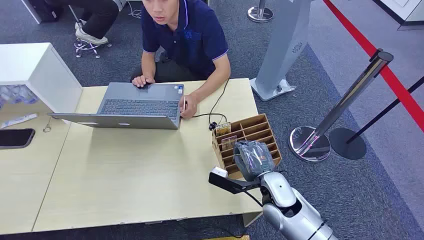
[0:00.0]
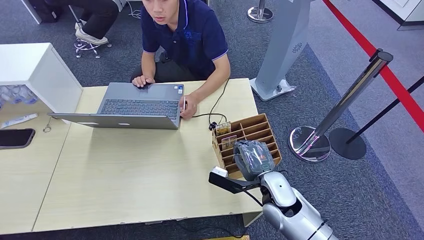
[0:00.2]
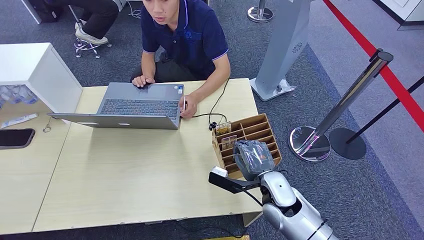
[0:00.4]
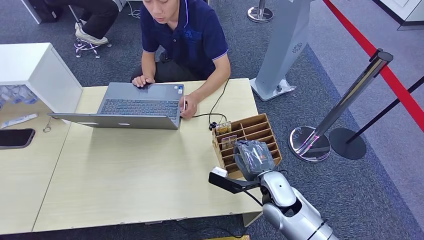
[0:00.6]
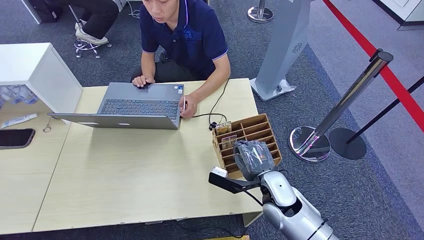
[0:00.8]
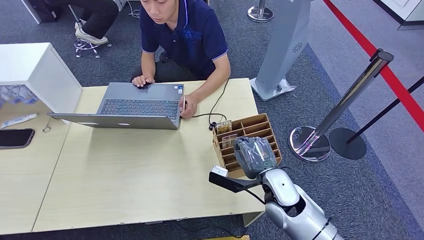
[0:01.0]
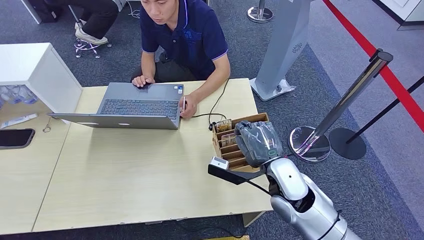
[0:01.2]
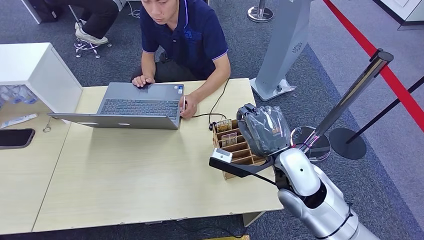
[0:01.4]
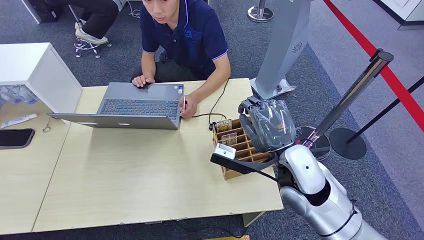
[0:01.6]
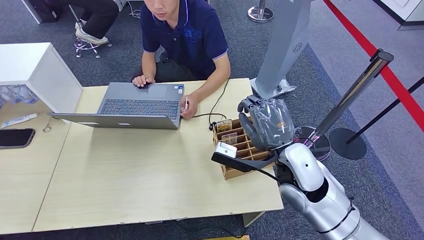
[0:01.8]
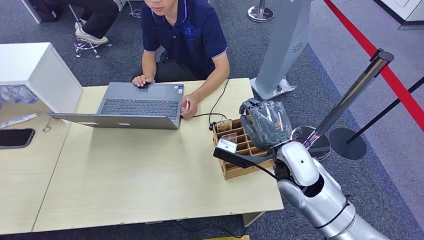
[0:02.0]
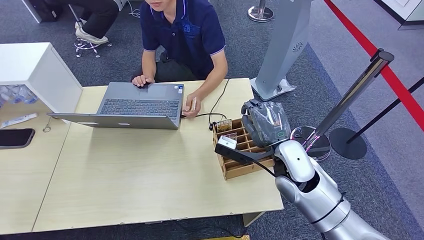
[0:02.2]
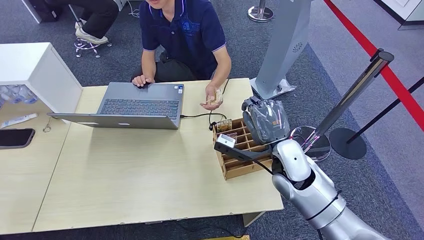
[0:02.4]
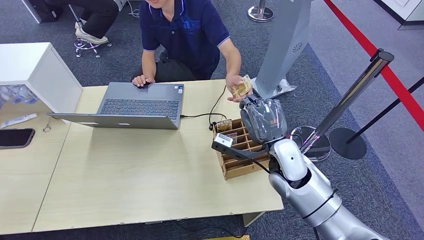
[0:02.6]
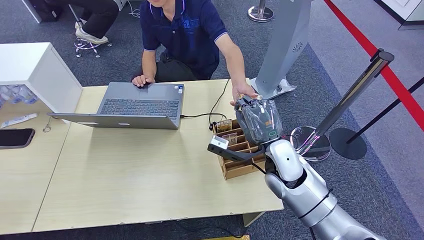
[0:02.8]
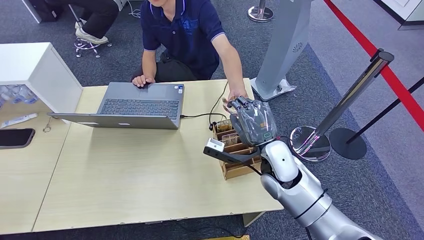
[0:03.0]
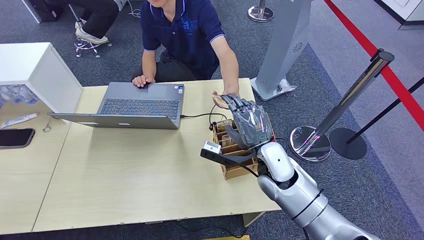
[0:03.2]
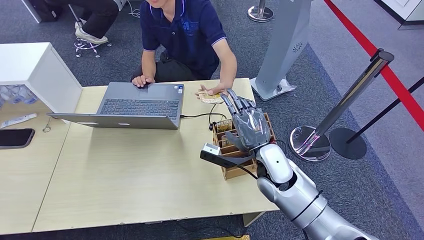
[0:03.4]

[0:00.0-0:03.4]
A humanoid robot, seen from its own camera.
Step, 0:00.0 to 0:01.2: Pick up the key card from the card box.
Step, 0:03.0 to 0:03.4: Hand the key card to the target.
0:01.6 to 0:03.4: The right hand goes about 10 cm downward and forward.

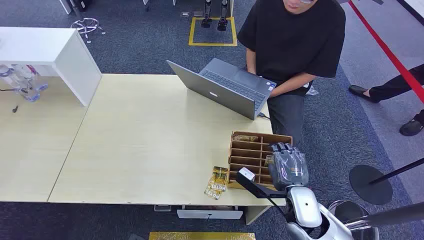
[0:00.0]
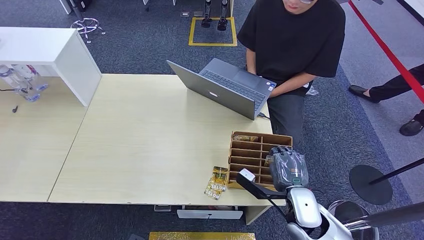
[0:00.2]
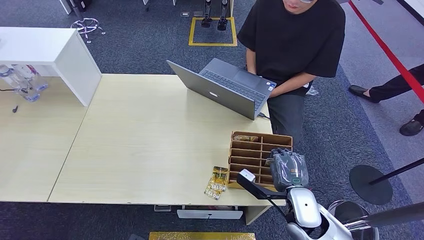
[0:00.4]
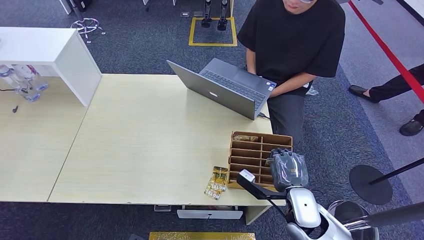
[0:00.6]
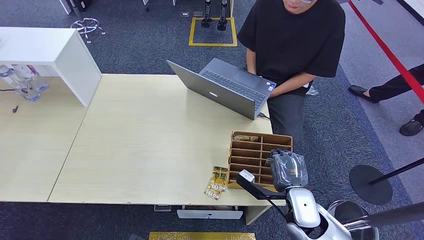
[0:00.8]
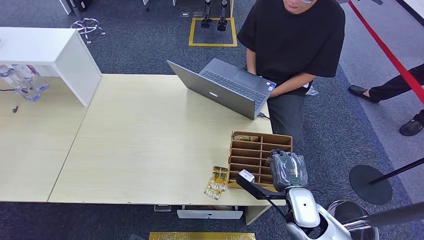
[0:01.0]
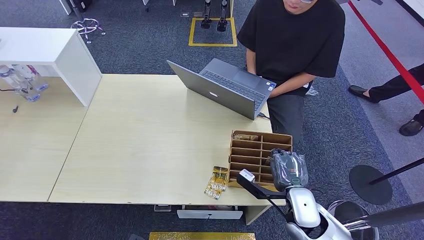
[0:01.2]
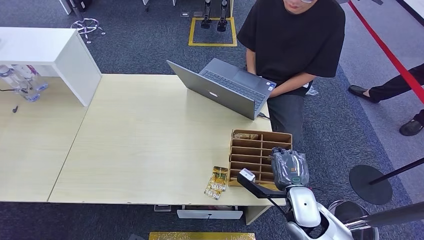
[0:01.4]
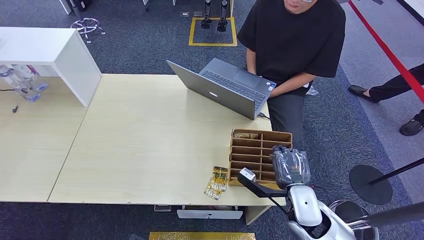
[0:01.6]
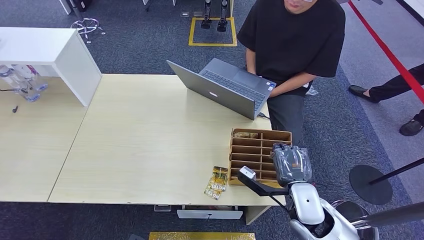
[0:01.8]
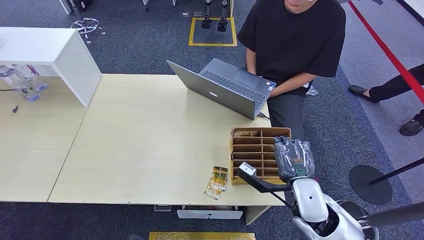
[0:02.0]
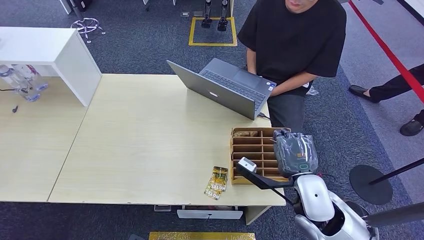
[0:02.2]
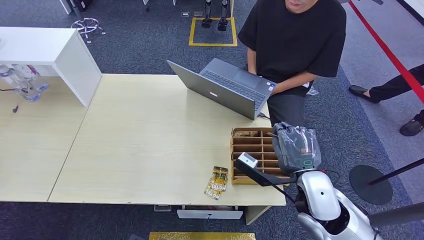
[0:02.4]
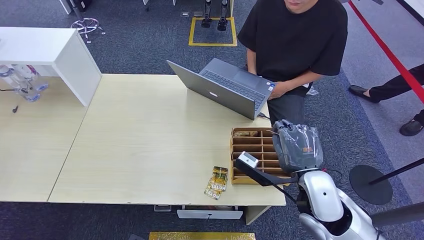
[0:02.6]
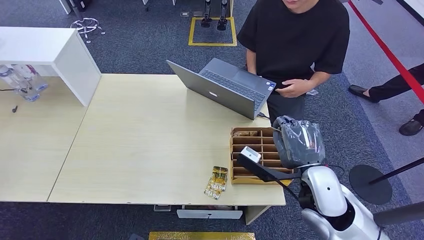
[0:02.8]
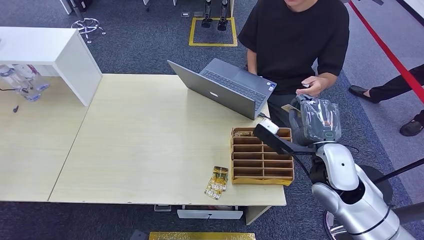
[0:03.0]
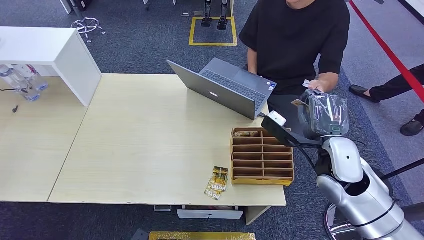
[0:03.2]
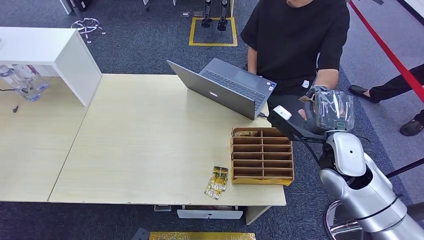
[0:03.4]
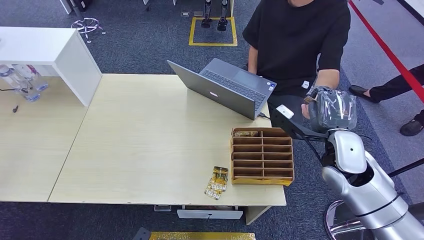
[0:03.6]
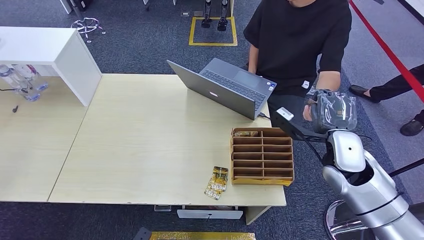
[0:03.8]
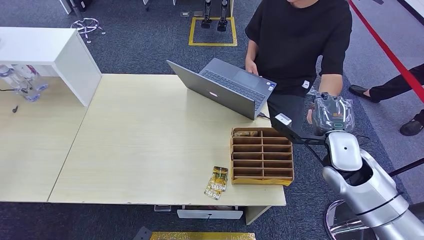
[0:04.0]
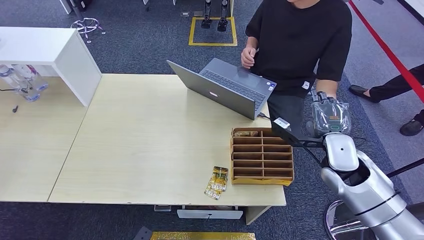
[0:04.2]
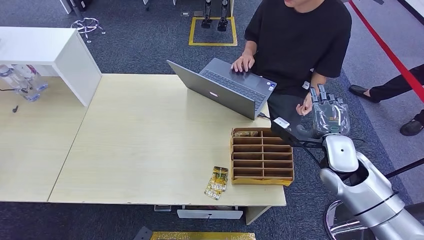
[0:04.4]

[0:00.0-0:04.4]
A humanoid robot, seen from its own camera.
Step, 0:00.0 to 0:02.8: Pick up the key card from the card box.
Step, 0:03.0 to 0:04.4: Hand the key card to the target.
0:01.4 to 0:03.0: The right hand is displaced upward by roughly 15 cm.
0:03.0 to 0:04.4: The right hand heads to the right, covering about 5 cm.

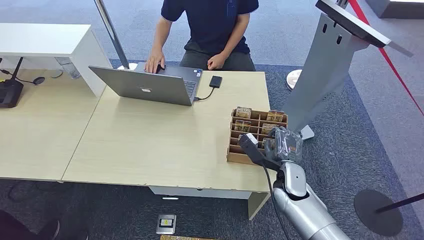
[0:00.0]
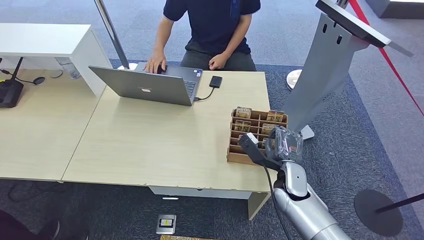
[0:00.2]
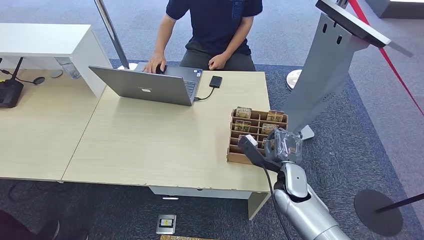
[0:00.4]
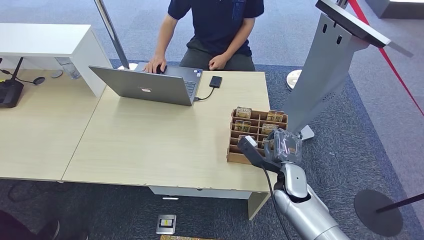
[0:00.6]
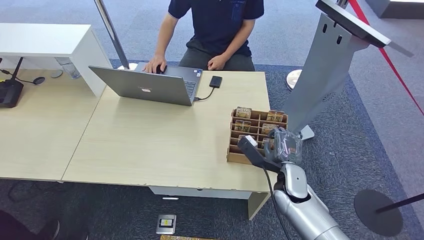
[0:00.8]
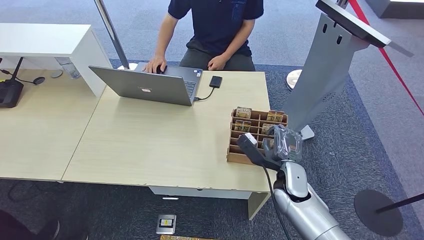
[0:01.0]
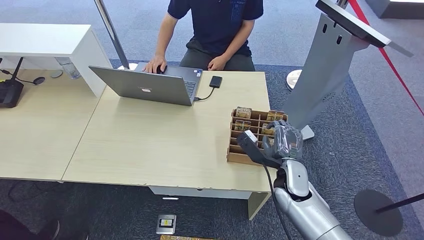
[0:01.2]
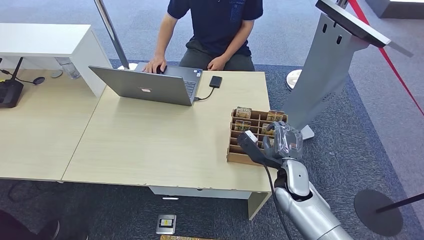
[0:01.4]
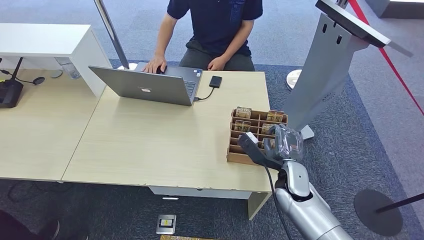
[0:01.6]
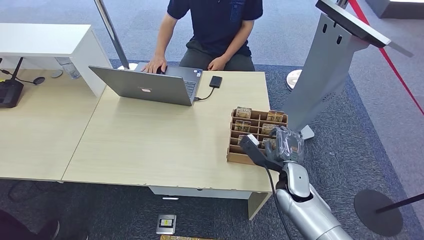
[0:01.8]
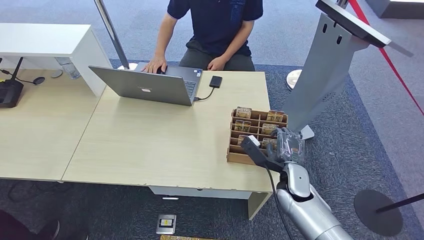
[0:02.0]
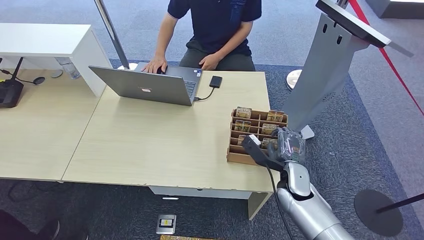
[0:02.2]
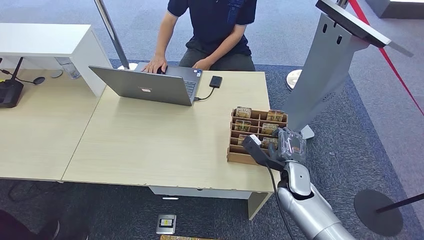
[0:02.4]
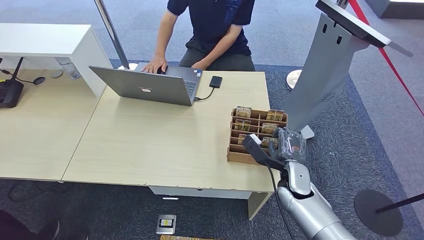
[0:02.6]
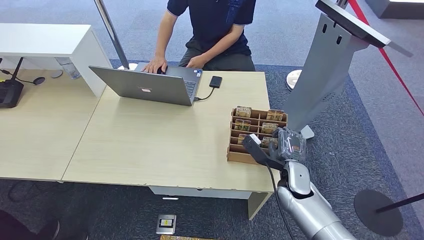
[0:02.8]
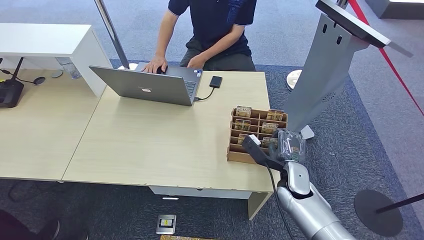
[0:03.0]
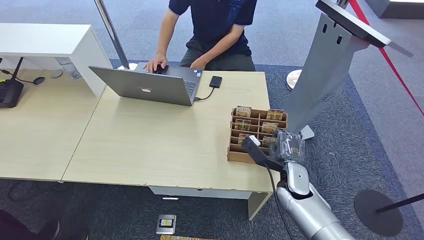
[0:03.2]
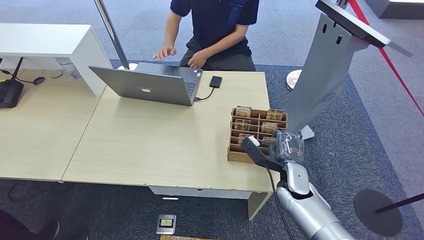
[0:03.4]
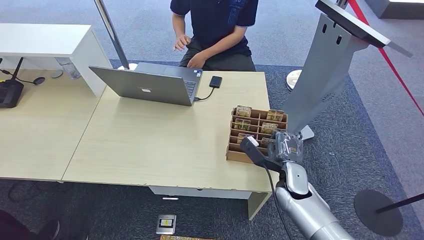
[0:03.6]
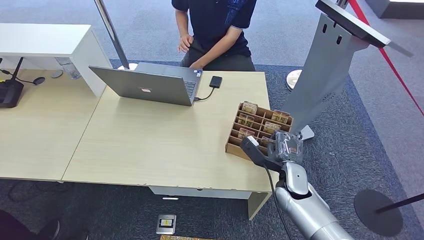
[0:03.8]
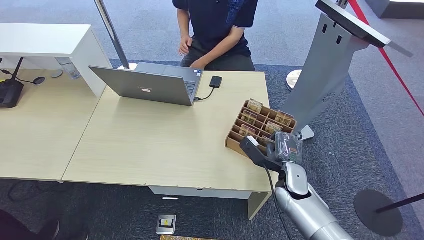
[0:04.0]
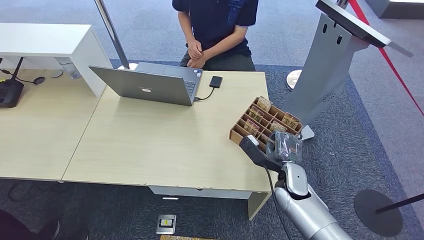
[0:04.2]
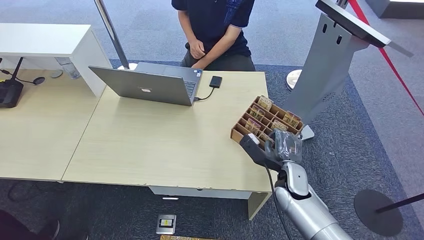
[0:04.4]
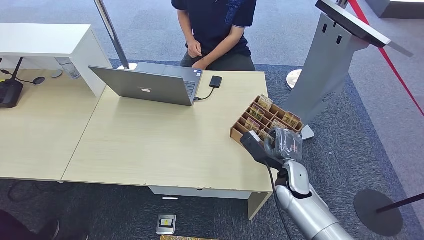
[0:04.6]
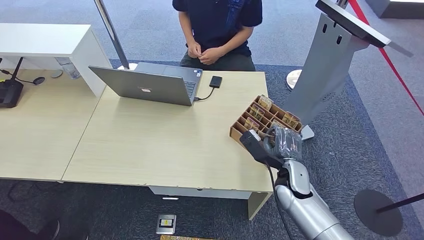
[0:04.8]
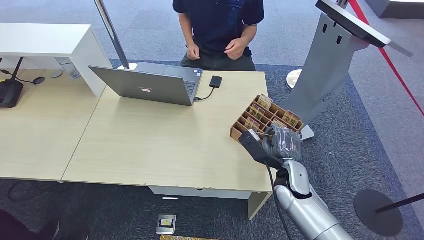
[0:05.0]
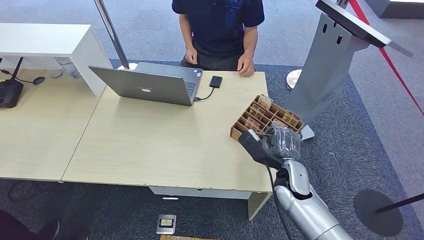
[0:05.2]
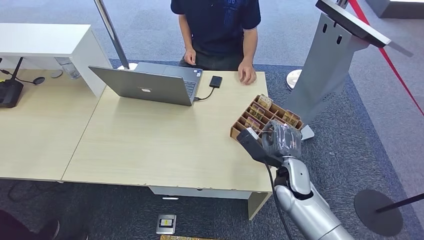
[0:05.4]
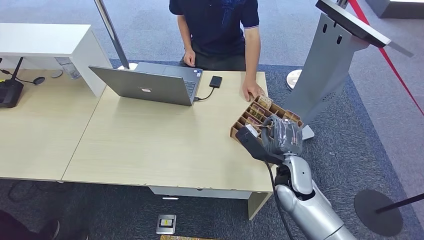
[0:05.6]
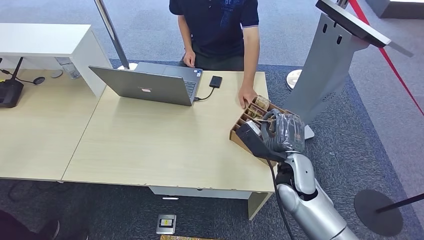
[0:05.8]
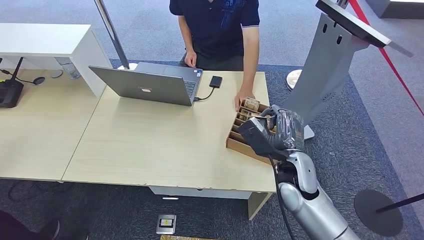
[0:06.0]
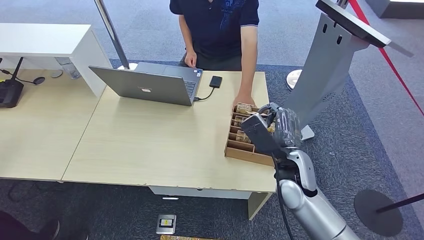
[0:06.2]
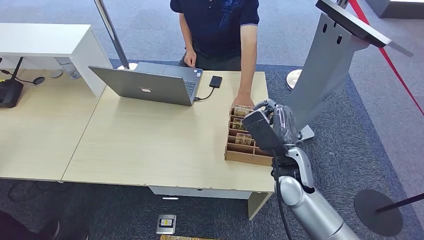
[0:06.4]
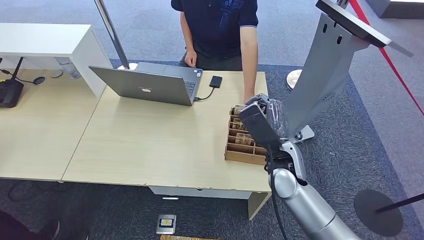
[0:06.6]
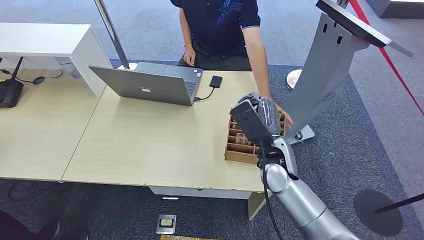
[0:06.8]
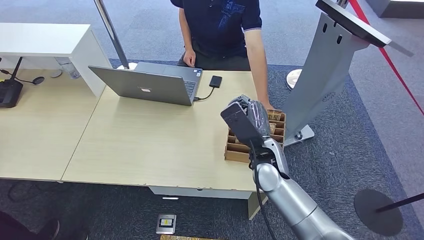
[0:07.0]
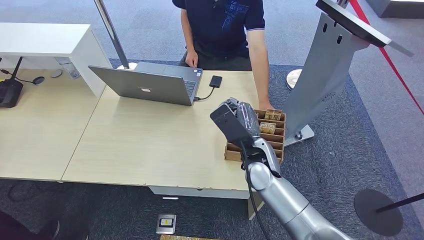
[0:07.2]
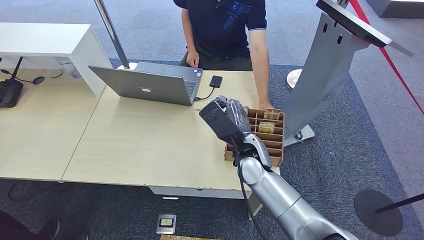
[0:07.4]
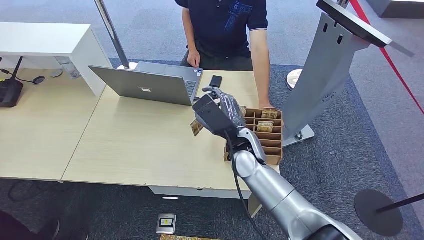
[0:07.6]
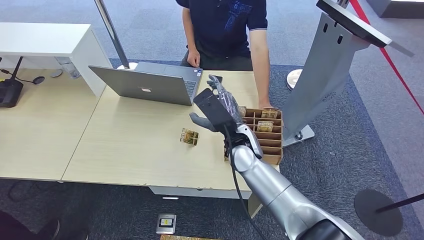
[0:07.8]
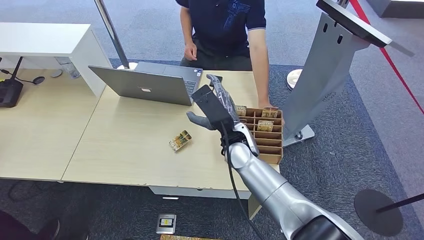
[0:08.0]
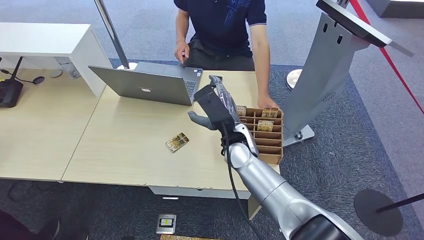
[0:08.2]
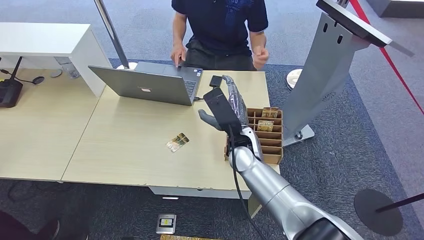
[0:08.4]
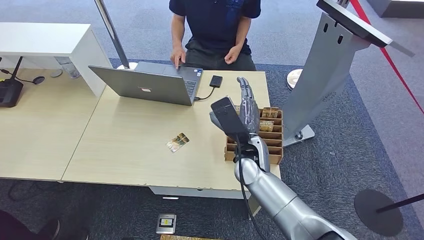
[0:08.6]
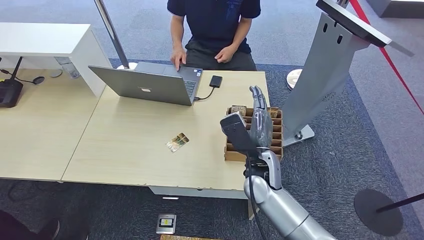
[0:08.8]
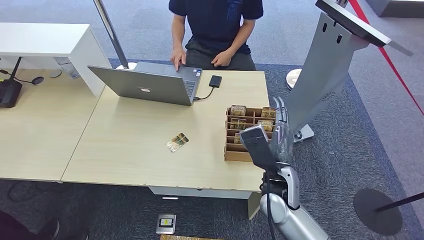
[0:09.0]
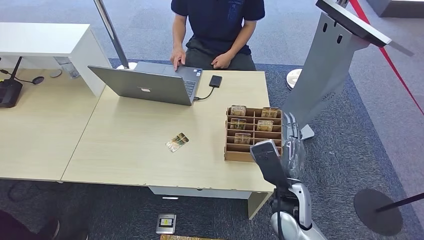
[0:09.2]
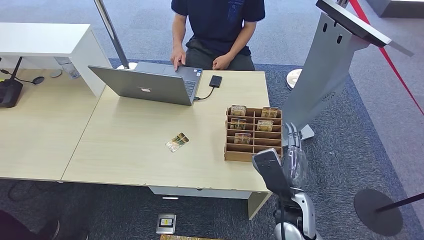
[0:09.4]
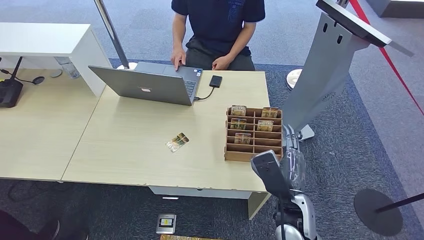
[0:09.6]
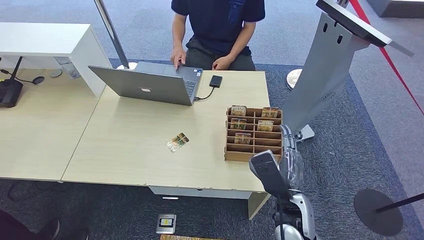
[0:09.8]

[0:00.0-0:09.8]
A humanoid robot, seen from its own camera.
Step, 0:00.0 to 0:05.4: Pick up the key card from the card box.
Step, 0:05.6 to 0:09.8: Hand the key card to the target.
0:01.4 to 0:02.8: The hands make only small movements.
0:02.8 to 0:04.2: Both hands stay about where they are.
0:04.2 to 0:05.6: The right hand moves upward, about 5 cm.
0:05.6 to 0:07.0: The right hand shifts some 5 cm to the left.
0:07.0 to 0:08.4: The right hand heads to the left, covering roughly 5 cm.
0:08.4 to 0:09.8: The right hand heads backward, to the right and downward, covering some 20 cm.
